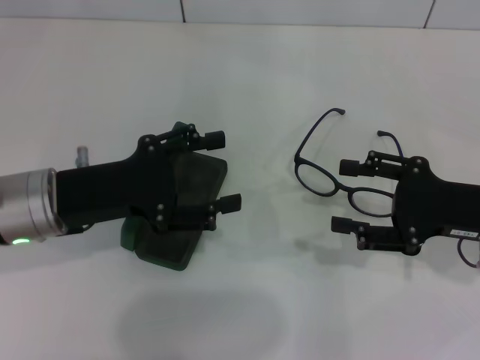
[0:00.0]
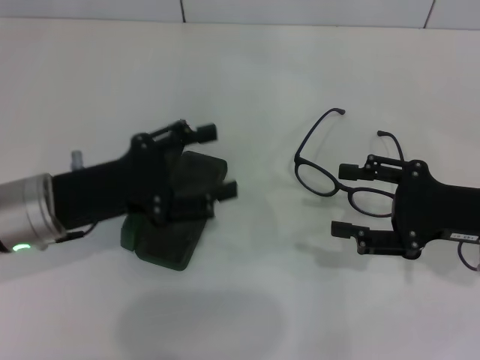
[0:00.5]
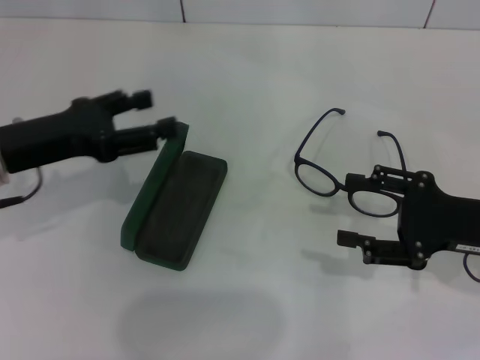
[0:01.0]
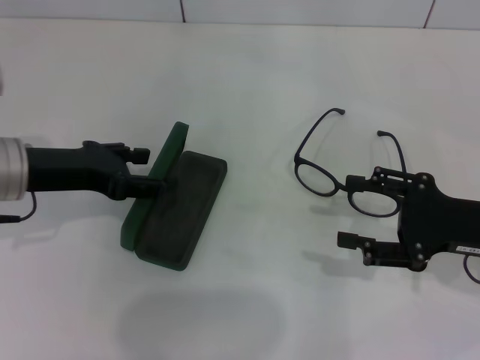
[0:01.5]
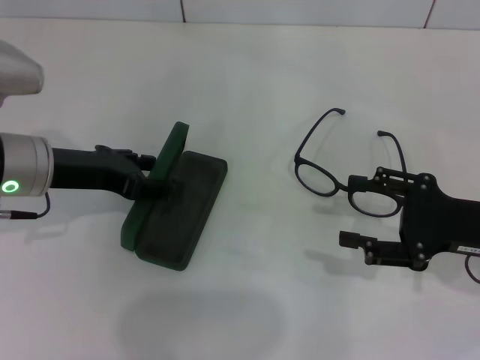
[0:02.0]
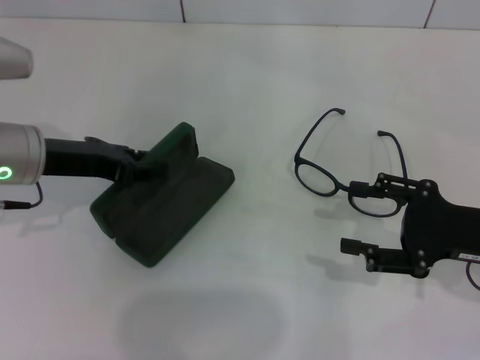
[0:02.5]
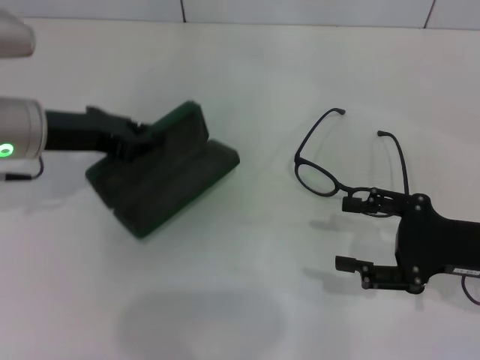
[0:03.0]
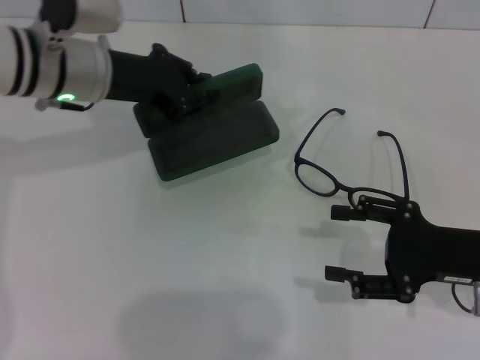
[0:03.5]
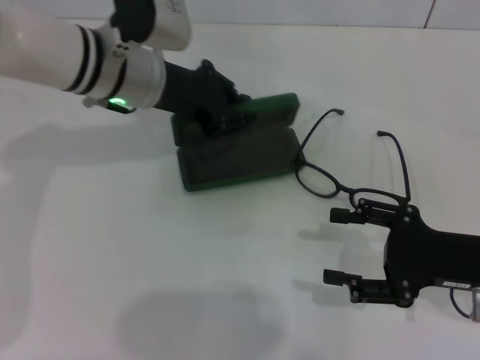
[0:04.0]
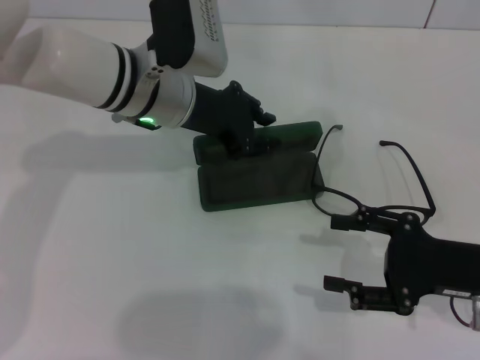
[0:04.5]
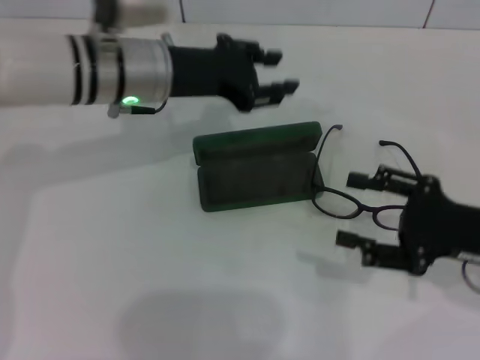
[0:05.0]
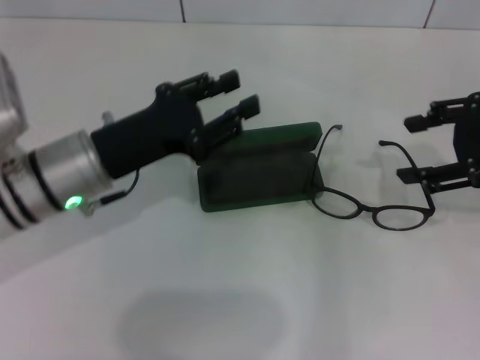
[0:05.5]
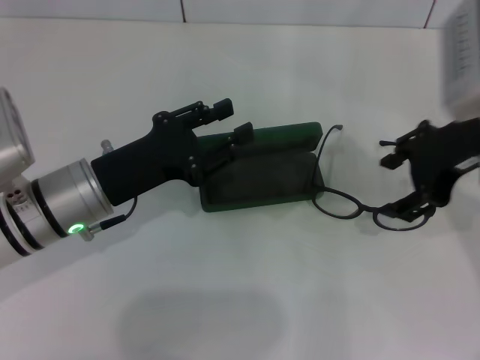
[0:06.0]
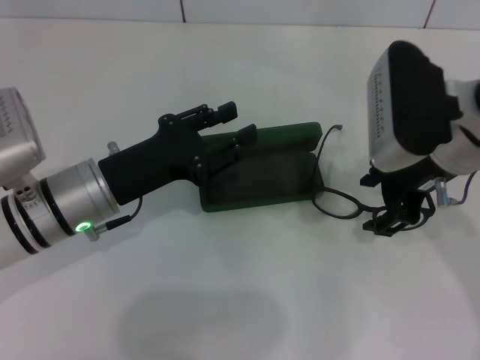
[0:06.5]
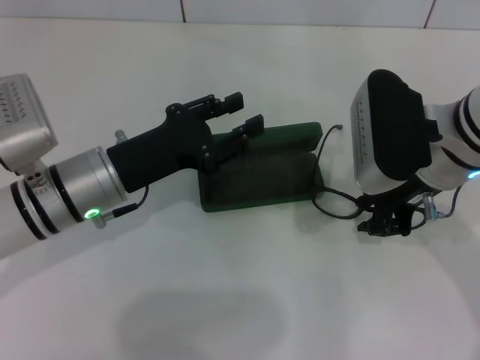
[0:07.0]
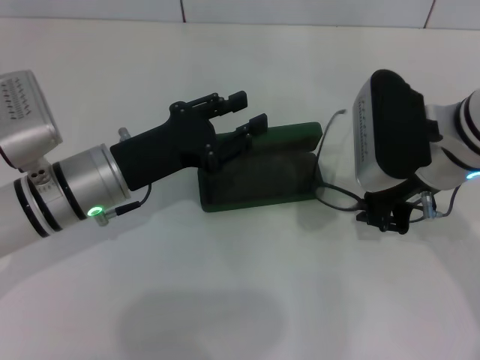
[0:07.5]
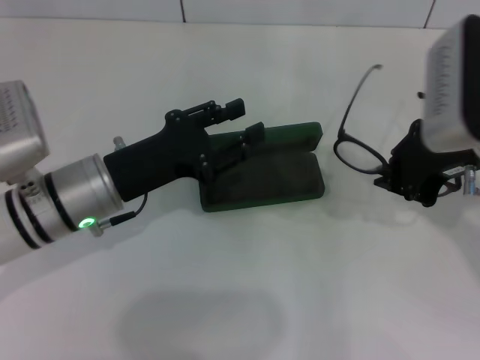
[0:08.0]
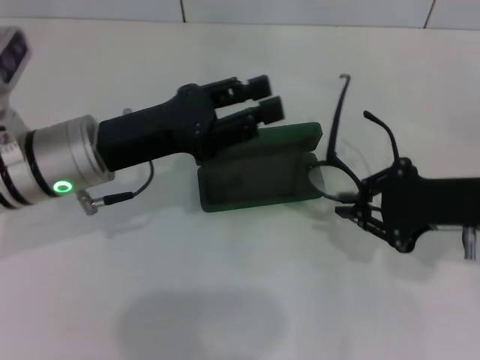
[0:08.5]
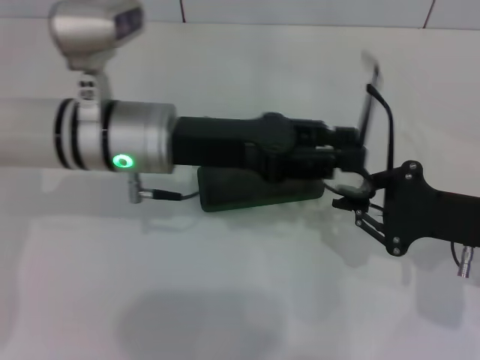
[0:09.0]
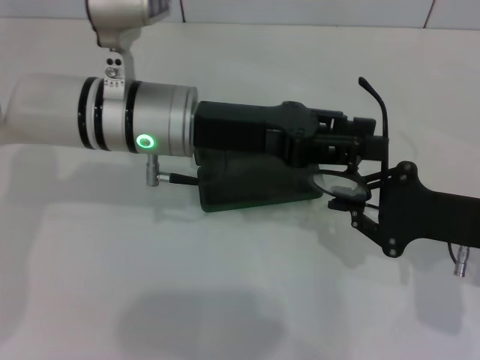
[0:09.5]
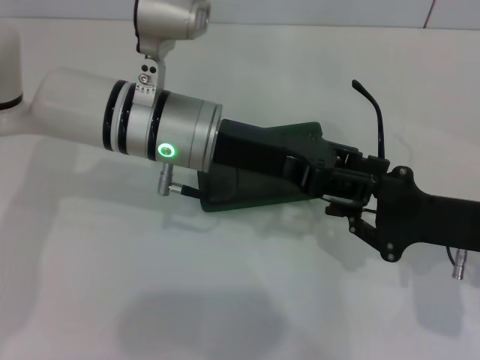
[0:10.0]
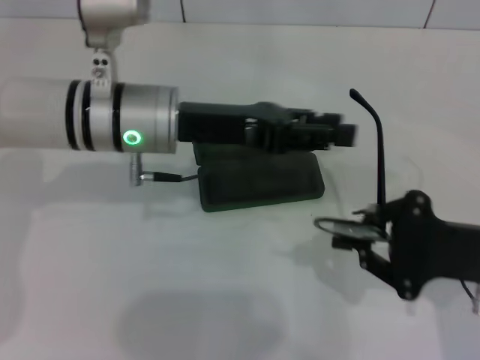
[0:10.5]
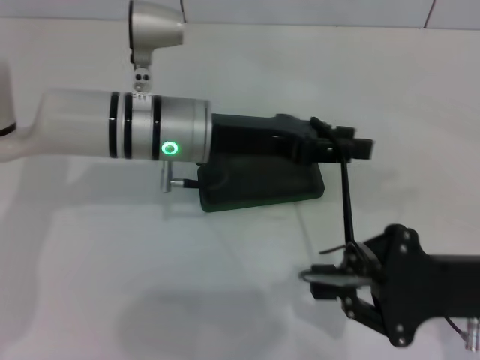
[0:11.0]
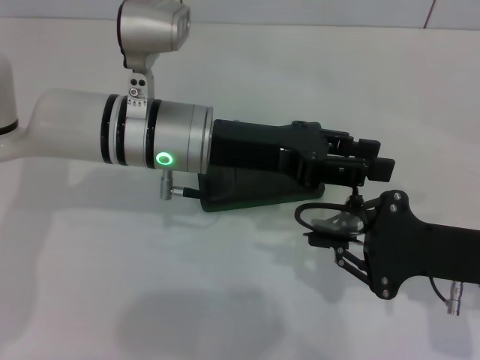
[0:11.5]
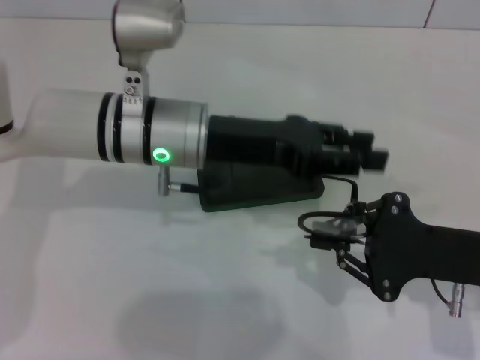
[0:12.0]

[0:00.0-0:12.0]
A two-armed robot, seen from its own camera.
Step, 0:00.0 to 0:02.0: Grab the glasses case with your left hand.
Step, 0:02.5 to 0:04.5: Place the glasses case in the center of the table with your left hand.
Step, 0:05.0 to 0:07.0: Grab the eyeglass frame with your right hand.
Step, 0:07.5 to 0:11.5: Fold the frame with your left hand.
0:02.0 to 0:04.0: The left gripper moves to the right and forward, roughly 15 cm, and closes its fingers.
0:04.0 to 0:06.0: The left gripper travels backward, downward and to the left by approximately 15 cm, and opens, while the right gripper moves upward, forward and to the left, about 20 cm.
0:06.0 to 0:08.0: The right gripper closes.
0:08.0 to 0:10.0: The left gripper heads to the right, upward and forward, covering some 15 cm. The right gripper travels downward, backward and to the right by roughly 15 cm.

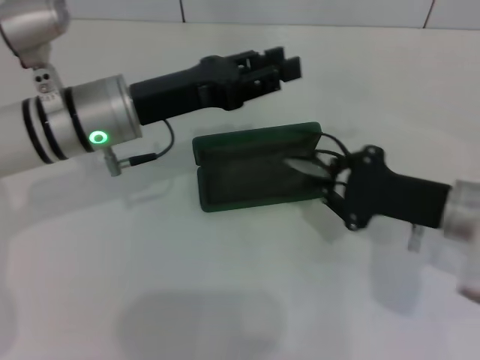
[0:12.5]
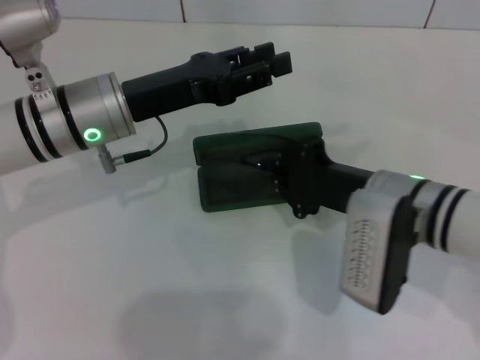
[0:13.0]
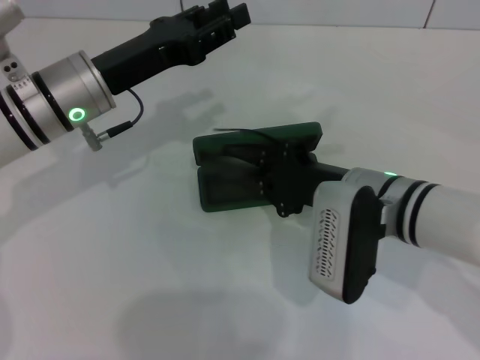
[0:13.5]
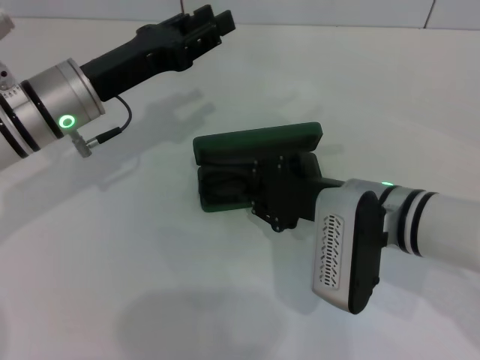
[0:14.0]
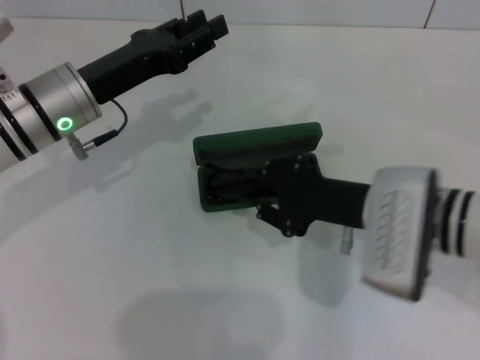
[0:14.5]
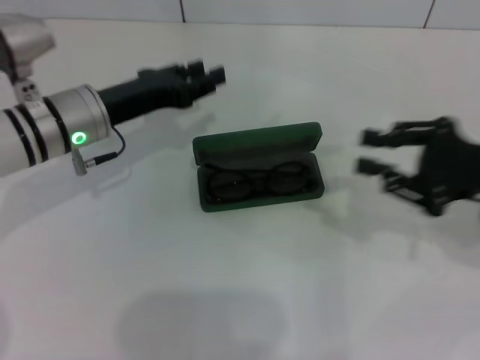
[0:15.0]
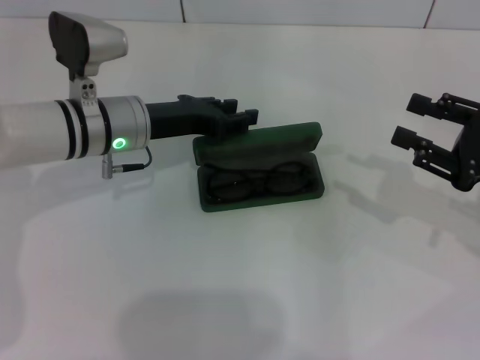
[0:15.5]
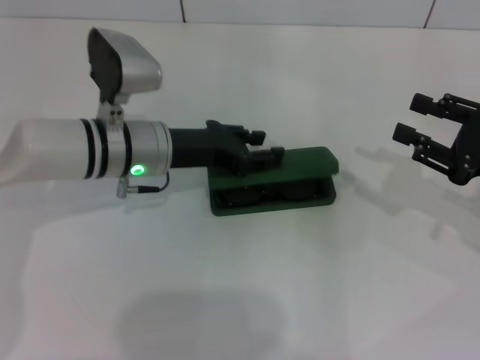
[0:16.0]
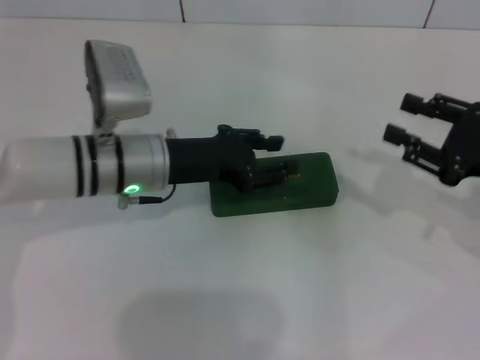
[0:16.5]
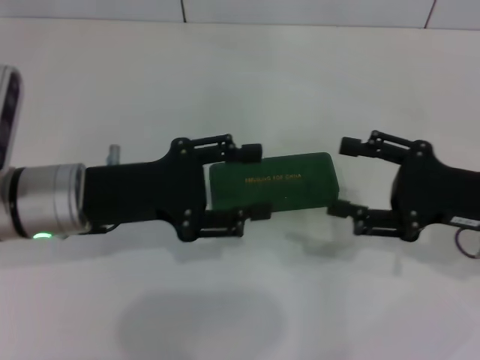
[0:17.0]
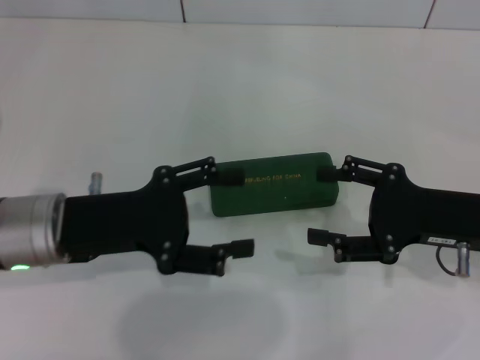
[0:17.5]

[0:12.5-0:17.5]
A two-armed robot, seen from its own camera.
Step, 0:12.5 to 0:14.0: Put the glasses into the case with your right hand.
Step, 0:14.5 to 0:16.0: Close the glasses case with your left hand.
0:12.5 to 0:15.0: The right gripper is displaced to the right by roughly 5 cm; the left gripper shifts by roughly 5 cm.
0:15.0 to 0:17.5: The right gripper opens. The left gripper shifts some 10 cm backward, and opens up.
